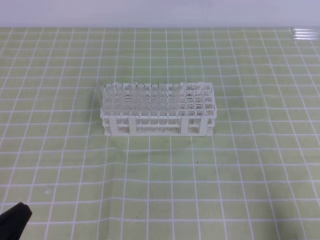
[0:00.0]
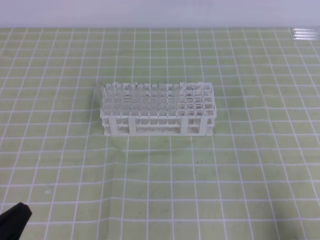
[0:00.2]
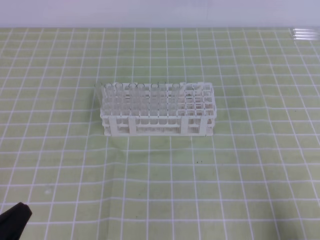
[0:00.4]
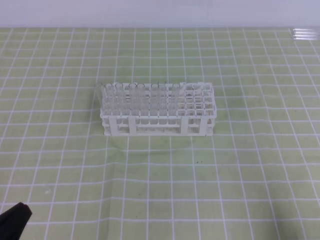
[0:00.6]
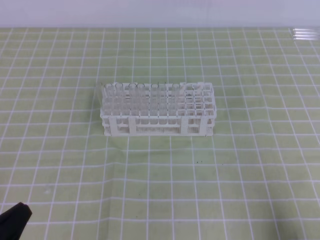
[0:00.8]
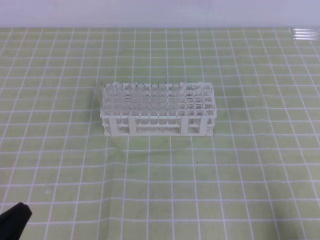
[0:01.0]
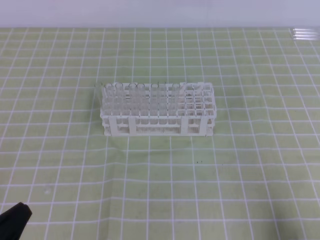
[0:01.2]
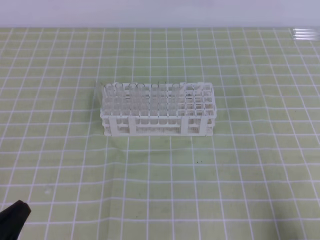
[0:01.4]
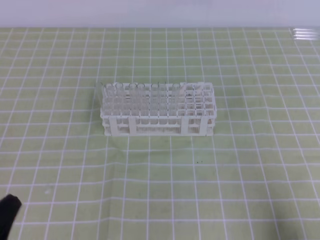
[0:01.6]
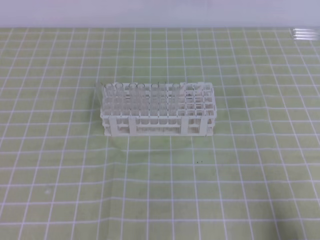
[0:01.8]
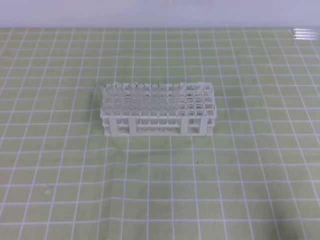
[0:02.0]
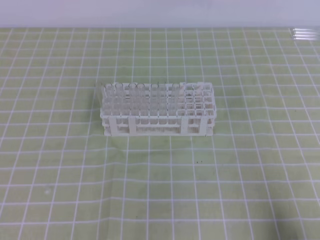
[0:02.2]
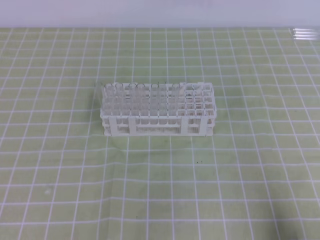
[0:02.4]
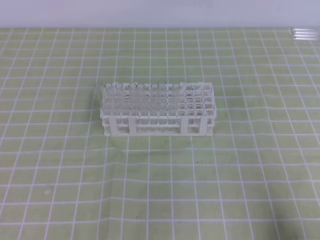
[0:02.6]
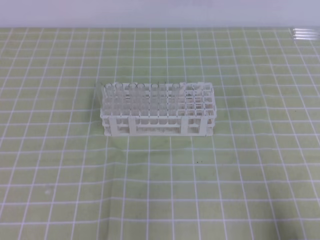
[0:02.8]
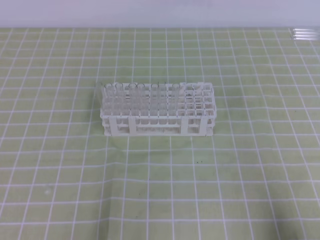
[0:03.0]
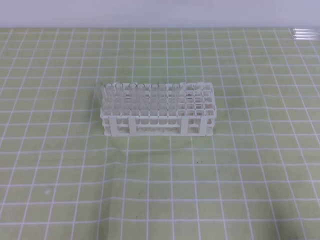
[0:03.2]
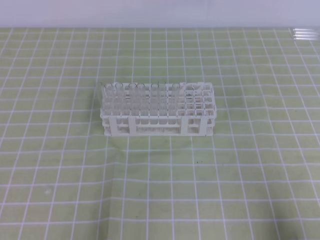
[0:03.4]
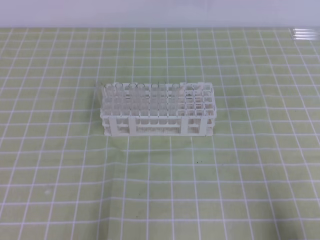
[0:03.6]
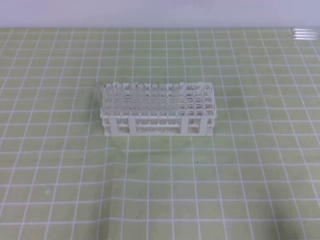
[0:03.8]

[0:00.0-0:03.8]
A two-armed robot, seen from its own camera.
0.0 to 1.2 s: Both grippers stay about where they are.

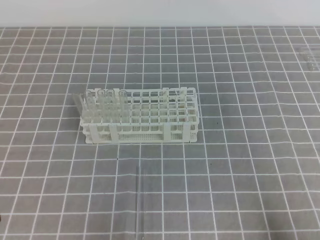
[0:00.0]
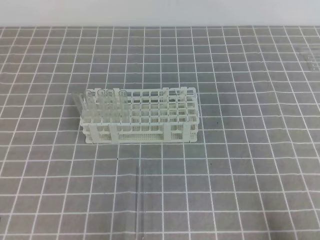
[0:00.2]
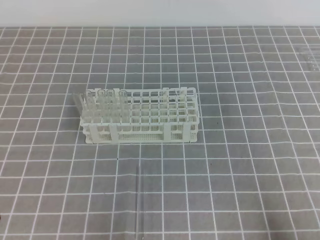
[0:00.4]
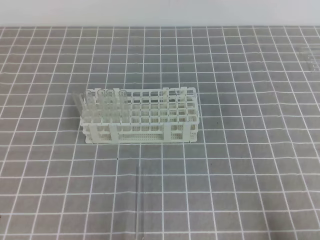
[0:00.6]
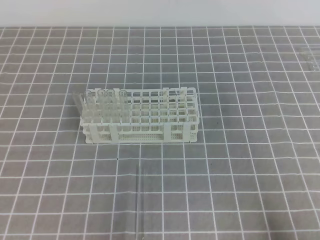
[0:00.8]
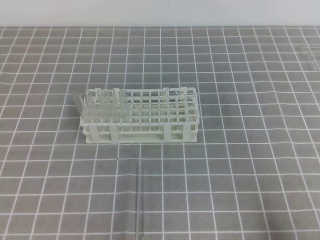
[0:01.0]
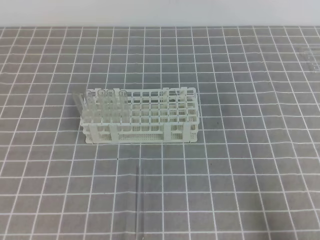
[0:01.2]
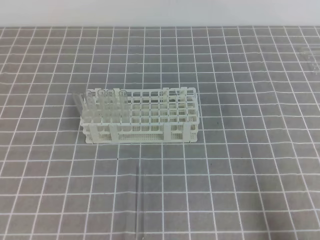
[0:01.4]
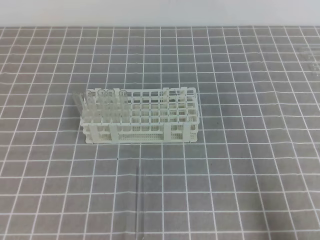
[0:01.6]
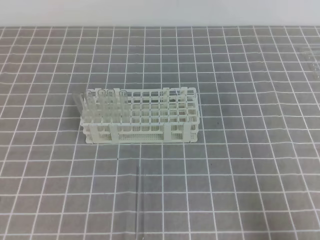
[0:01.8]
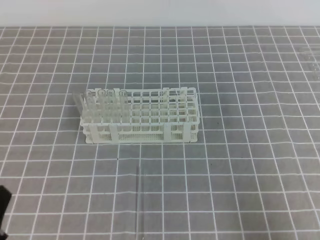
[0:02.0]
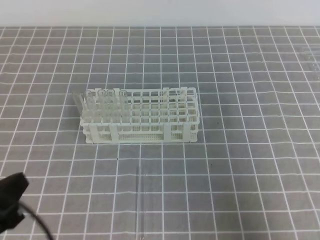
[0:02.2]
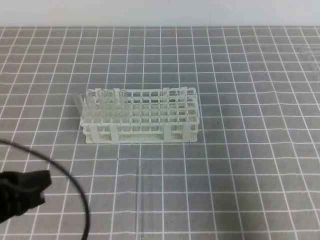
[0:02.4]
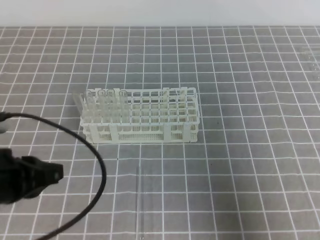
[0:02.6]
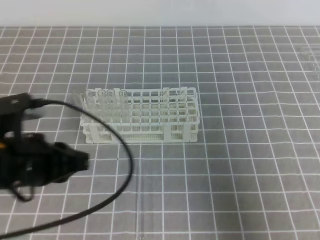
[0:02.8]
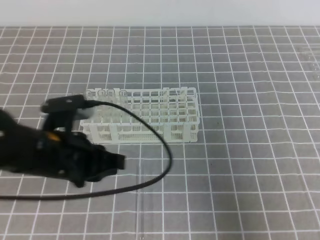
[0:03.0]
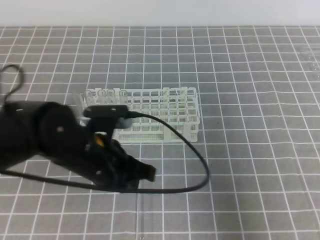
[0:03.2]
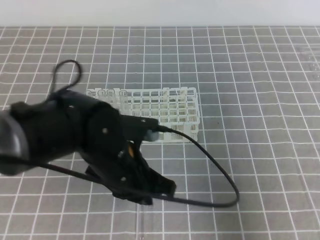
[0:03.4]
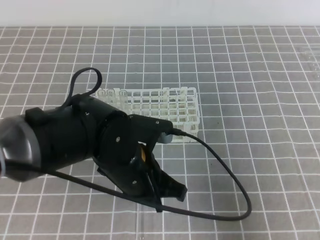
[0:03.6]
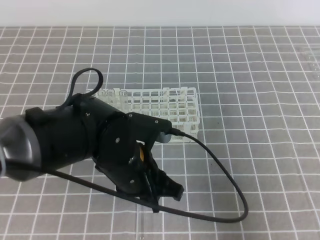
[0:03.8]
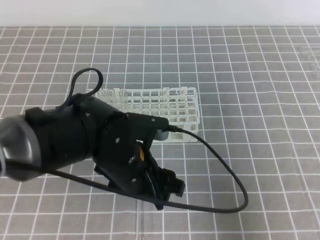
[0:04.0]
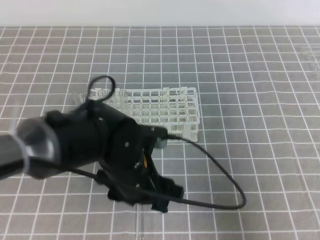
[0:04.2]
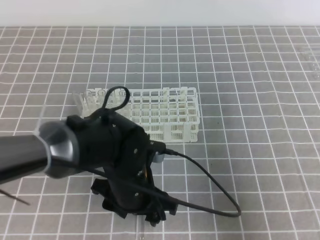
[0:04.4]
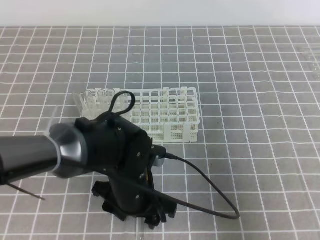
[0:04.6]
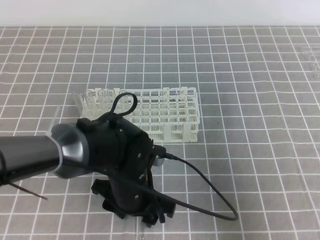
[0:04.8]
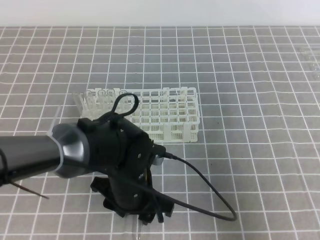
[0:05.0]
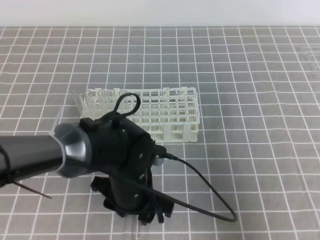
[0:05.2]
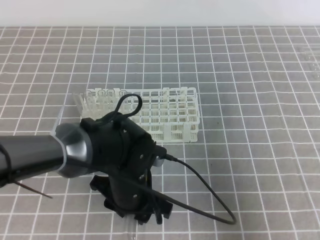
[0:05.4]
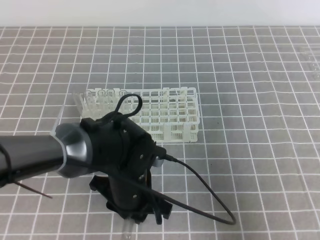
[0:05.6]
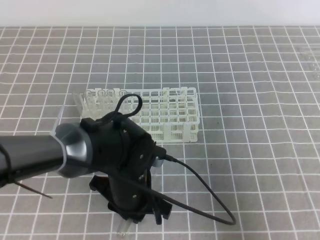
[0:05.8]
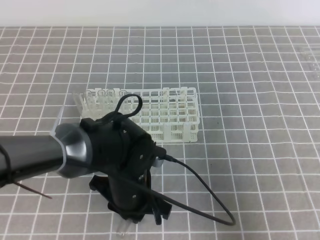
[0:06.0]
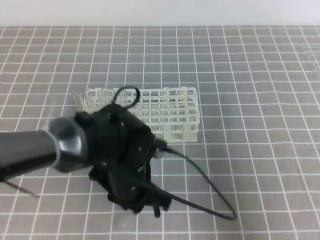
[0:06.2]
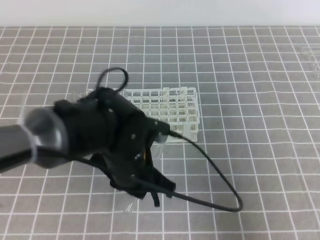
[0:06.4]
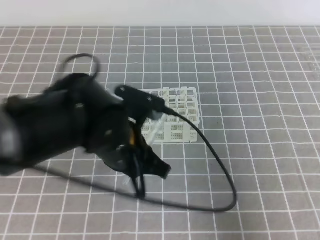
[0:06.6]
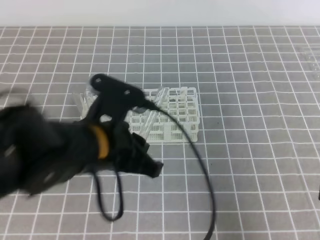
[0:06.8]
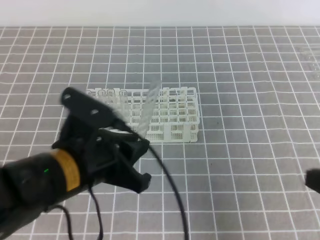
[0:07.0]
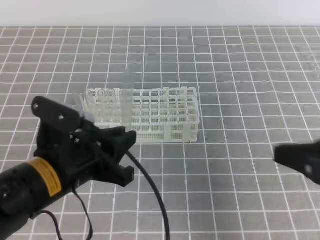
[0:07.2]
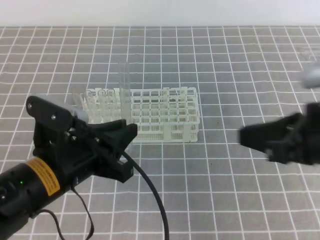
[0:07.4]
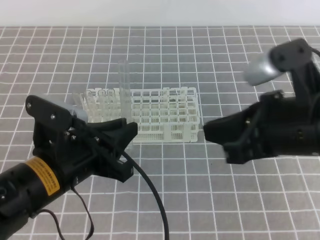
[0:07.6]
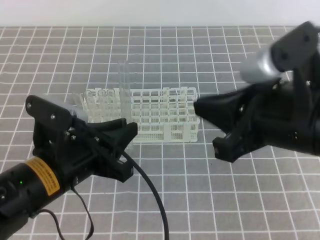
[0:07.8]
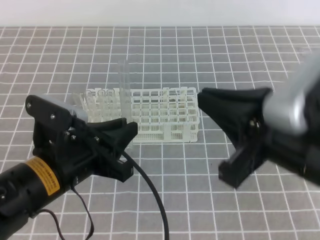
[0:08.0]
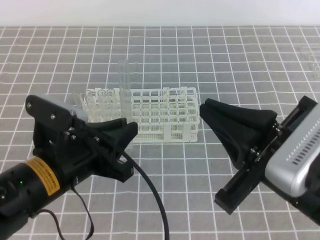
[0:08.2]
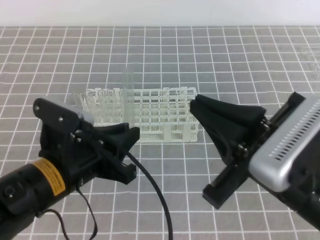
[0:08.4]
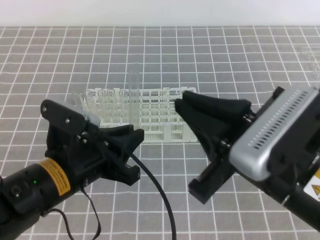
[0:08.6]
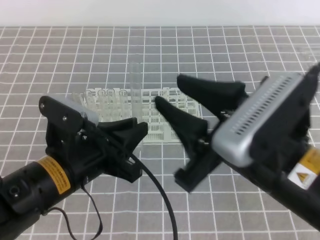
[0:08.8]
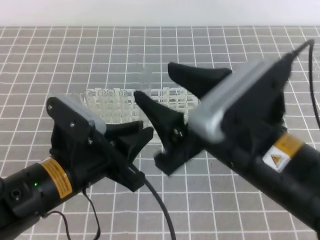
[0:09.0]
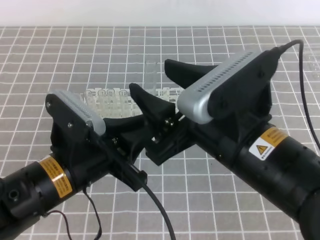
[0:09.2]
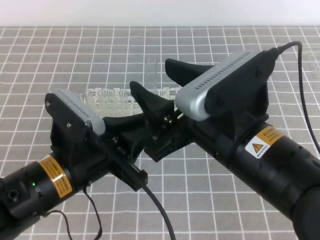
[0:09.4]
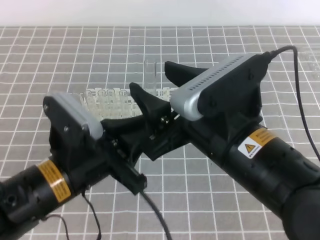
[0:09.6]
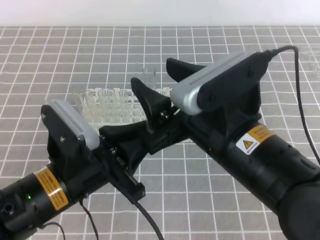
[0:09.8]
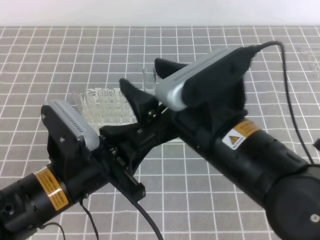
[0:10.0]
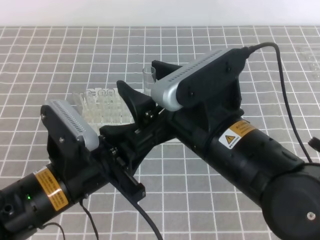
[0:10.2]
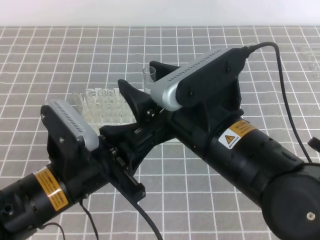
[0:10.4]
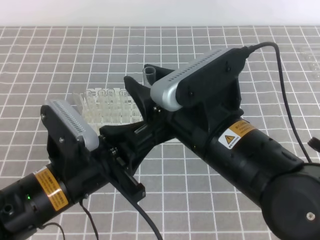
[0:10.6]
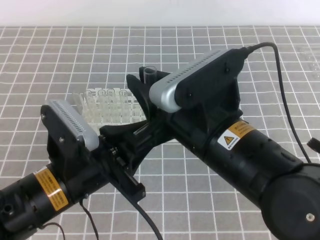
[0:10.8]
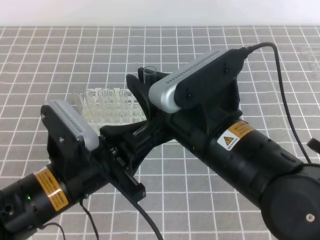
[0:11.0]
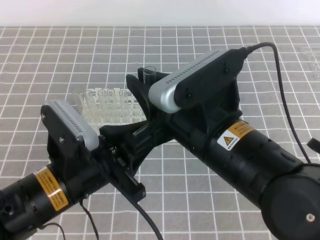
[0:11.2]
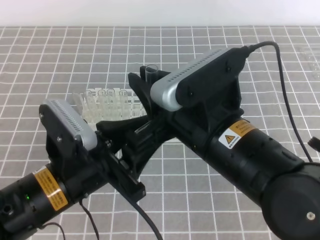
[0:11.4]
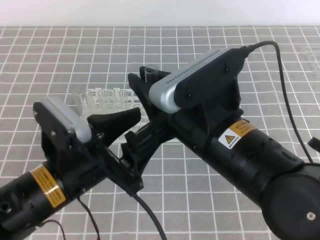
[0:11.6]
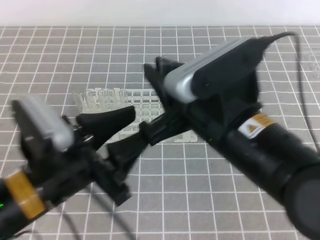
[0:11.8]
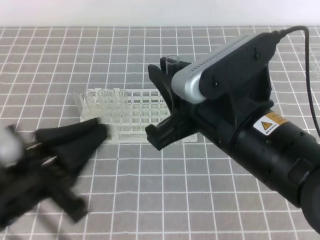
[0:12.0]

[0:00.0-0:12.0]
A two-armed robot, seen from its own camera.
1.6 to 3.0 s: The right gripper moves upward and forward, some 10 cm; the left gripper is displaced forward and to the right by roughly 20 cm.
3.0 to 4.4 s: The left gripper is displaced to the right and downward by about 15 cm, and opens its fingers.
4.4 to 6.0 s: The left gripper closes its fingers.
6.0 to 7.6 s: The left gripper moves upward and to the left, approximately 10 cm, while the right gripper goes some 15 cm to the left, upward and forward.
7.6 to 9.0 s: The right gripper is displaced to the left by some 10 cm, and opens.
10.4 to 12.0 s: The left gripper goes roughly 5 cm backward, and opens, then closes again. Meanwhile the right gripper closes up.

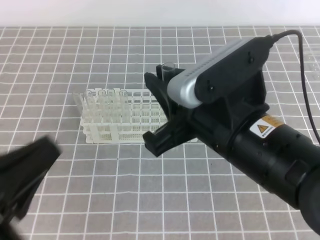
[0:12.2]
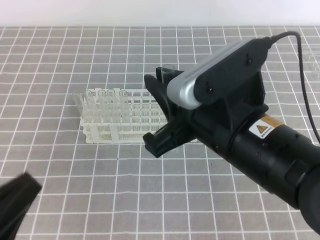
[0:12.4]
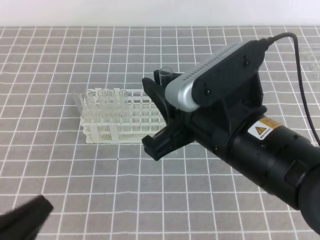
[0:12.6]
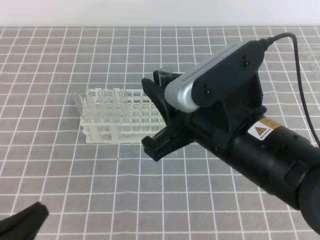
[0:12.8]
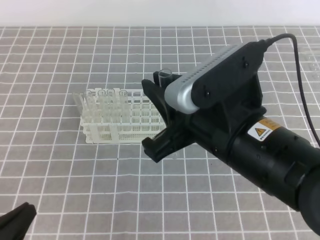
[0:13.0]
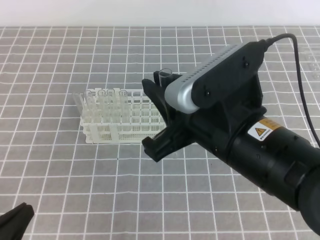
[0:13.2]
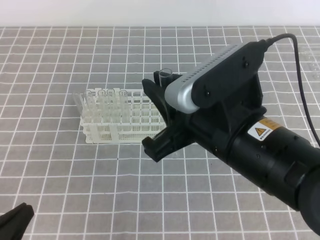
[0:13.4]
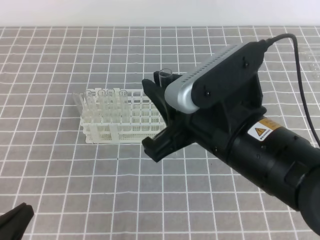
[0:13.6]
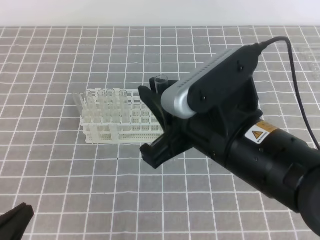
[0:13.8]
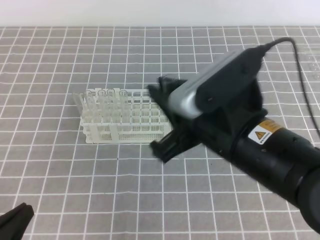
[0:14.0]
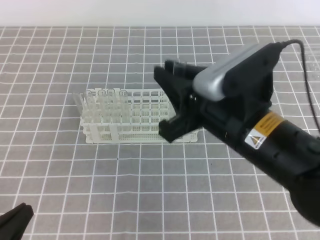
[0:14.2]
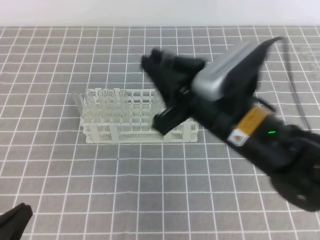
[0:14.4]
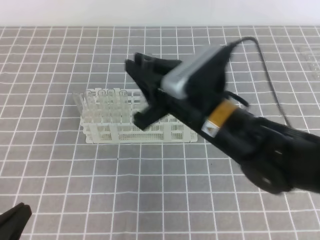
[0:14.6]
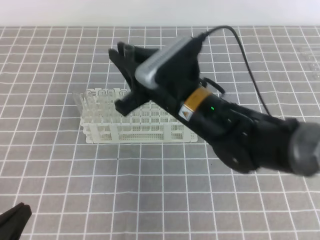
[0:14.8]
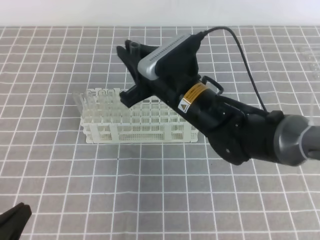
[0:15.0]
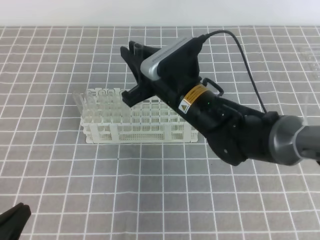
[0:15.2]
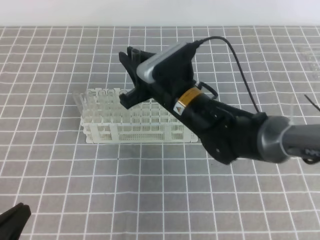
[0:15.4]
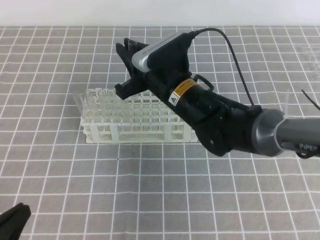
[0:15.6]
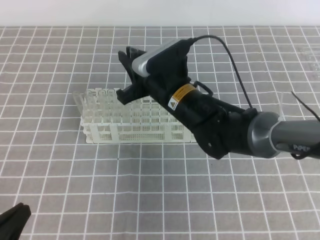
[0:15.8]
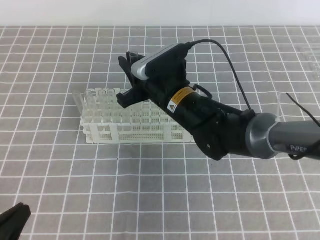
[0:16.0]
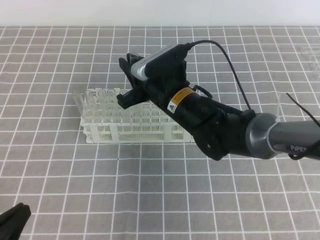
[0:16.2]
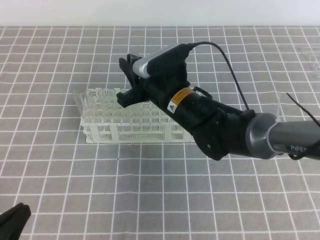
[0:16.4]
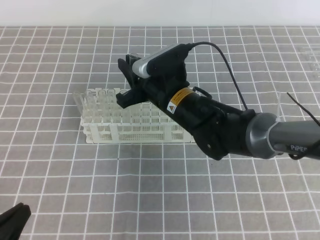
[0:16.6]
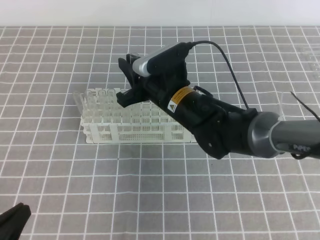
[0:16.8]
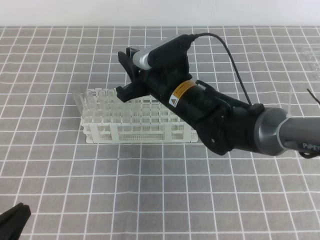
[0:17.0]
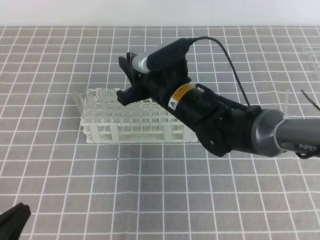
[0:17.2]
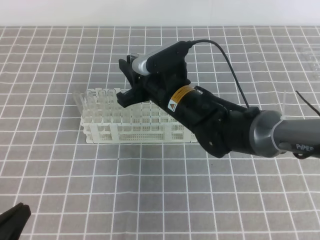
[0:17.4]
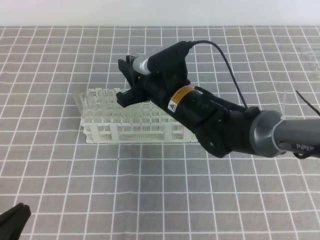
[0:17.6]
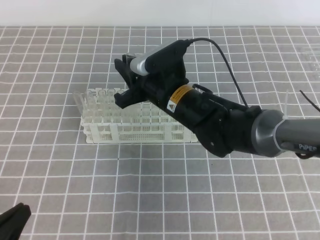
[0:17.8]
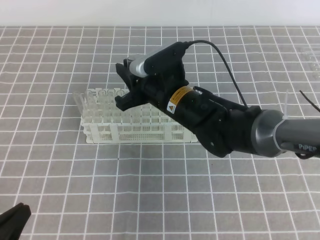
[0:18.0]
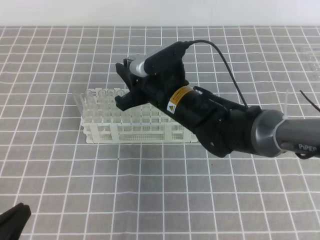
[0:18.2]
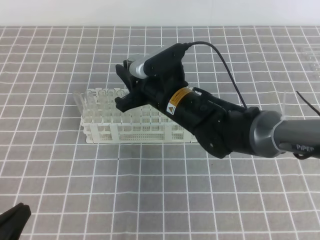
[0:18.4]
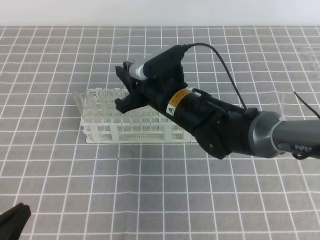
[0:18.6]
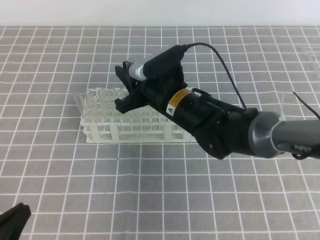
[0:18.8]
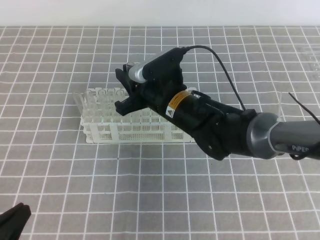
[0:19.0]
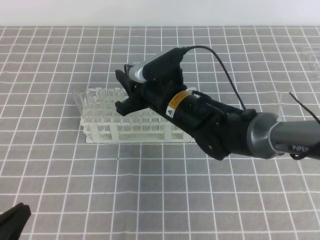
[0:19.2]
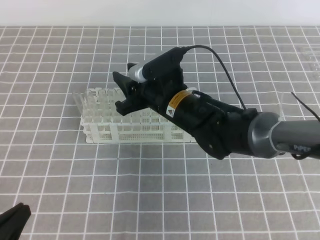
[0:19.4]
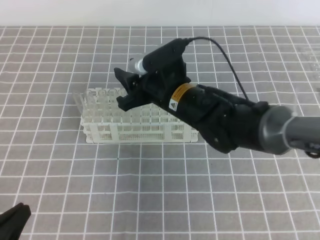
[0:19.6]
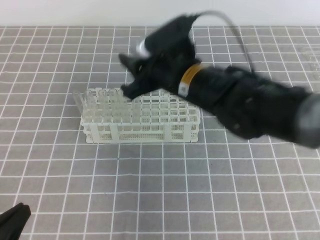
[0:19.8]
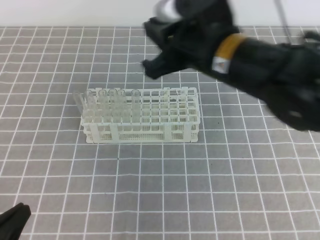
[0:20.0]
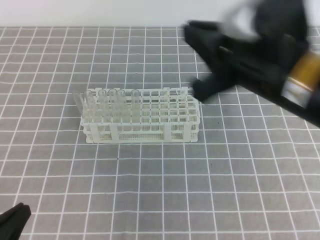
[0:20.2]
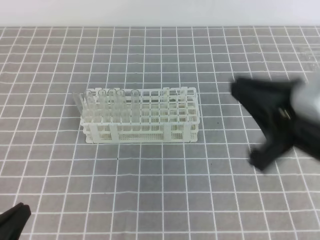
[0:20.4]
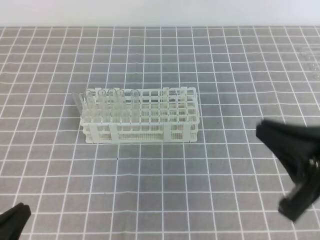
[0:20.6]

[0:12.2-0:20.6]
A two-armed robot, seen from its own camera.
12.2 to 13.6 s: The left gripper heads downward, covering roughly 10 cm.
13.6 to 15.0 s: The right gripper travels forward and downward by about 15 cm.
15.0 to 16.4 s: The right gripper moves some 5 cm.
16.4 to 17.8 s: Both grippers stay about where they are.
17.8 to 19.2 s: Both grippers stay put.
19.2 to 20.6 s: The right gripper heads backward, to the right and upward, covering approximately 30 cm, and closes its fingers.
